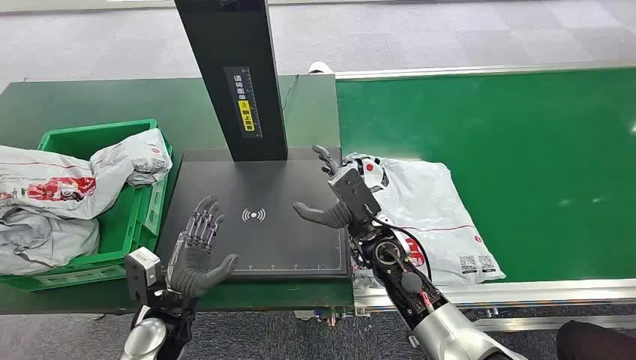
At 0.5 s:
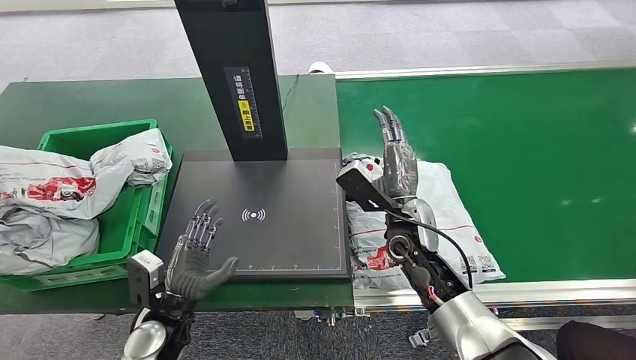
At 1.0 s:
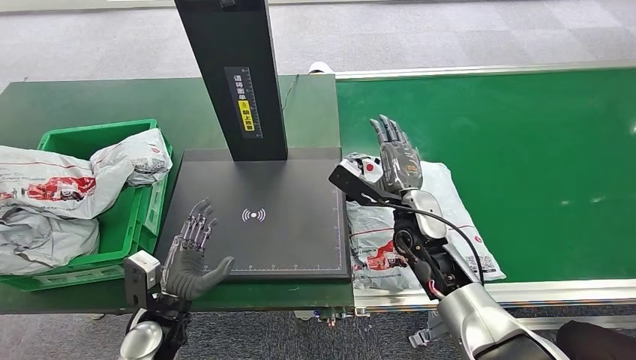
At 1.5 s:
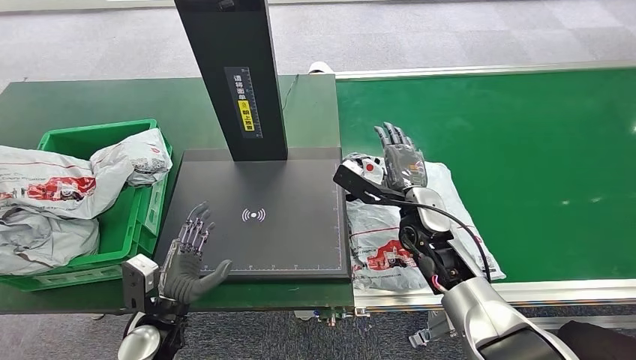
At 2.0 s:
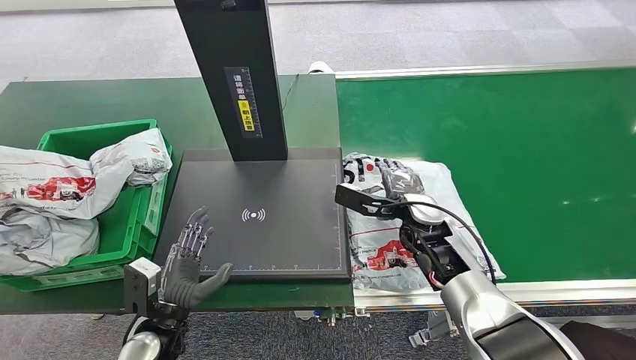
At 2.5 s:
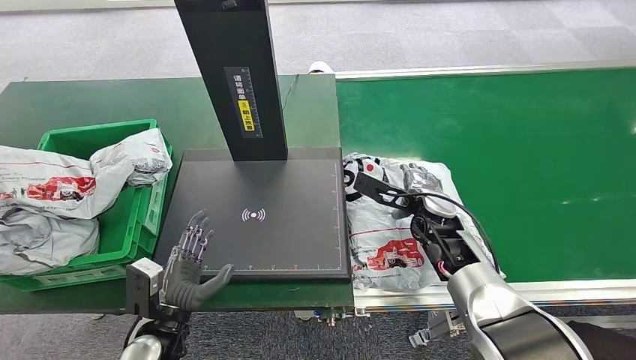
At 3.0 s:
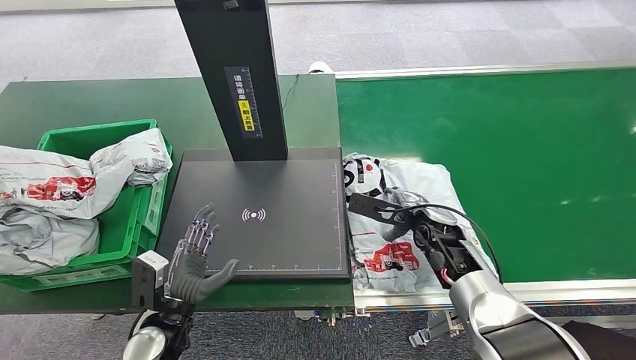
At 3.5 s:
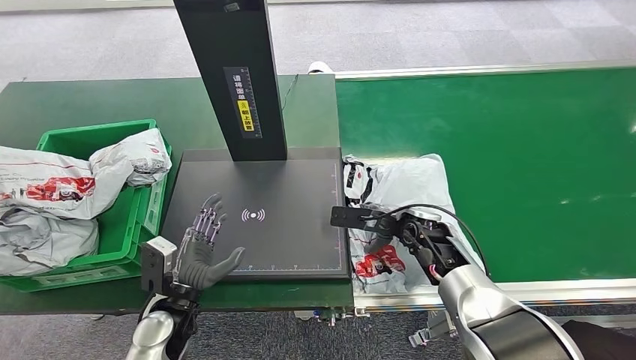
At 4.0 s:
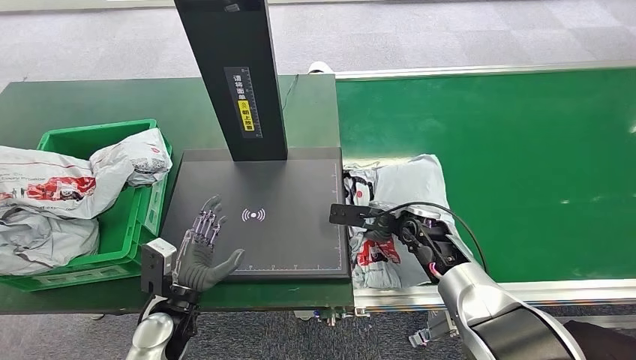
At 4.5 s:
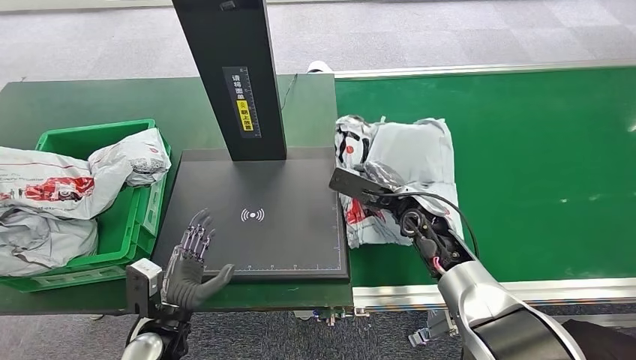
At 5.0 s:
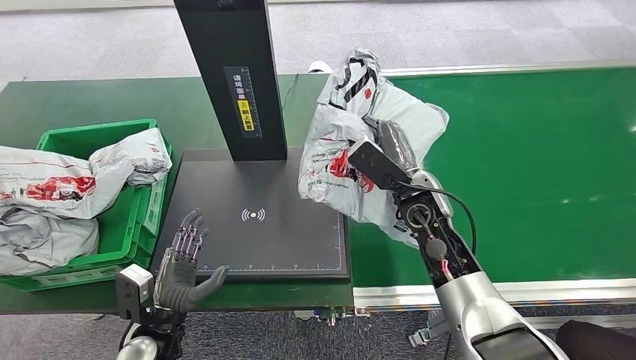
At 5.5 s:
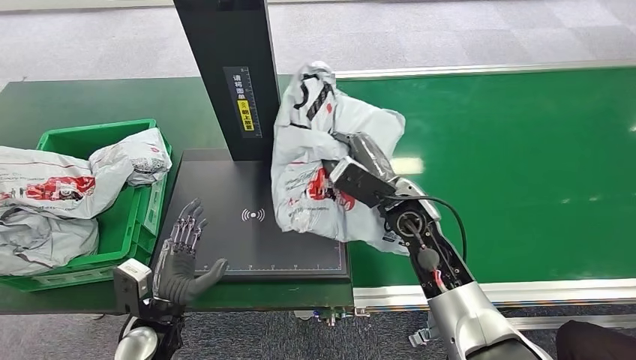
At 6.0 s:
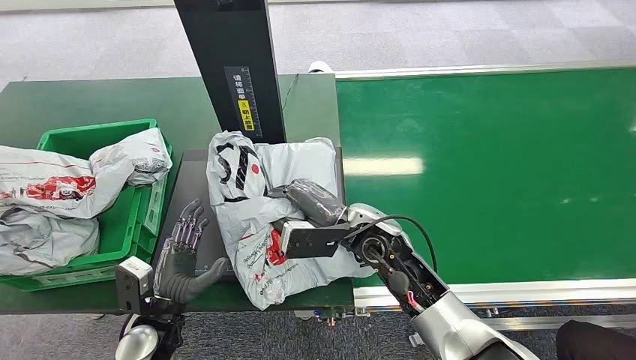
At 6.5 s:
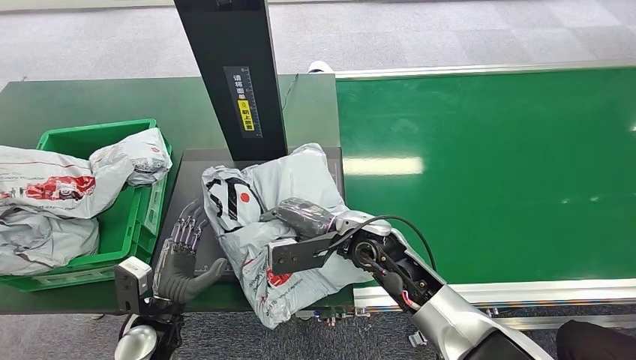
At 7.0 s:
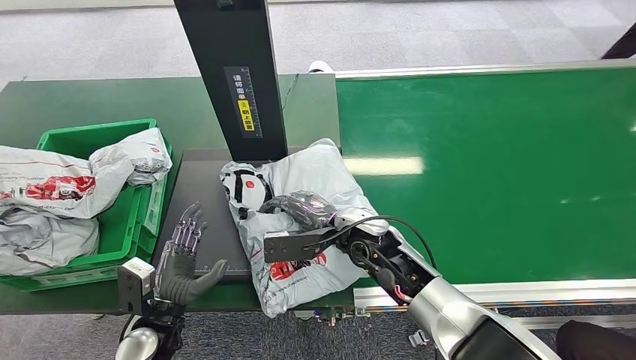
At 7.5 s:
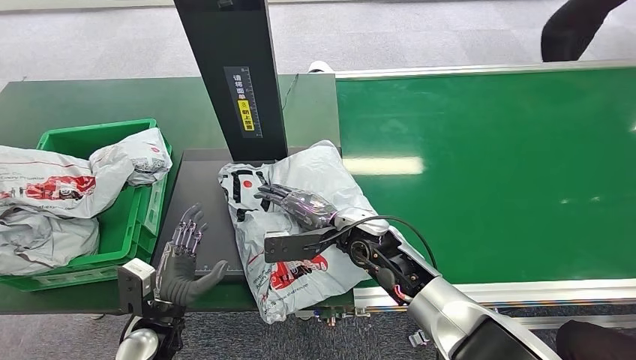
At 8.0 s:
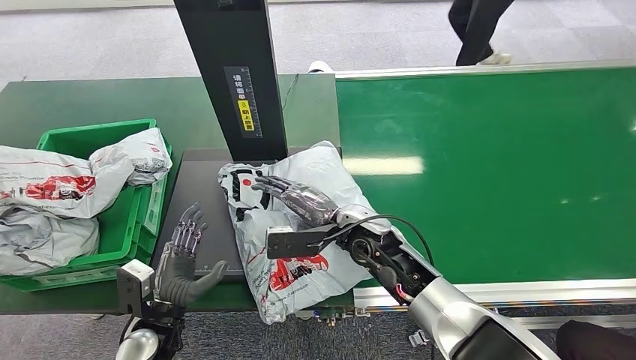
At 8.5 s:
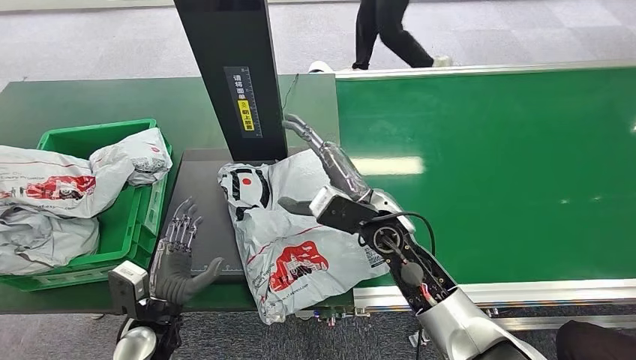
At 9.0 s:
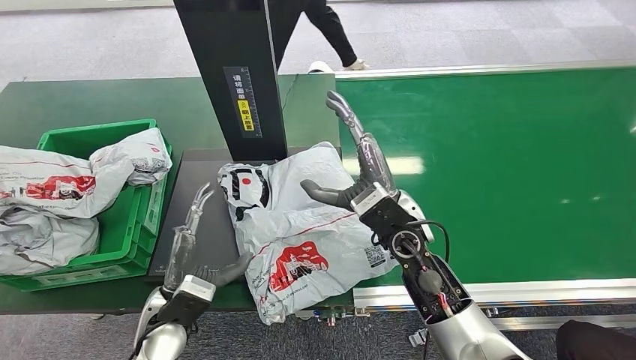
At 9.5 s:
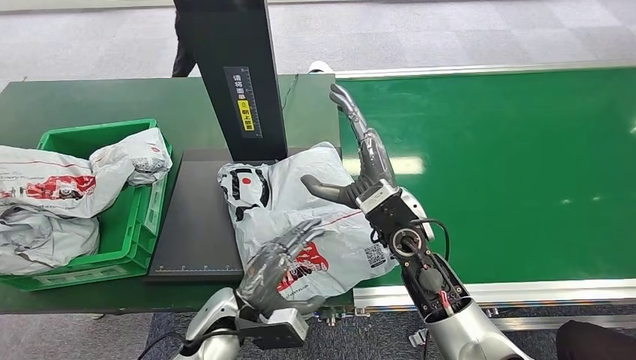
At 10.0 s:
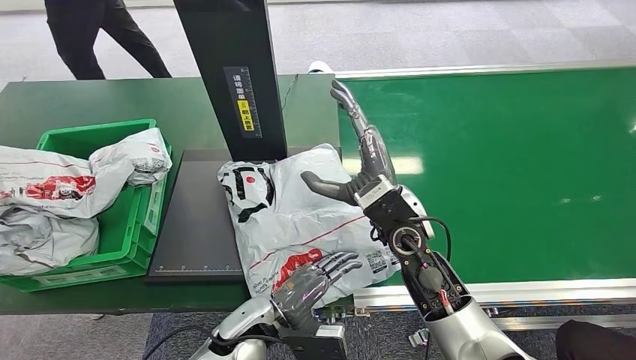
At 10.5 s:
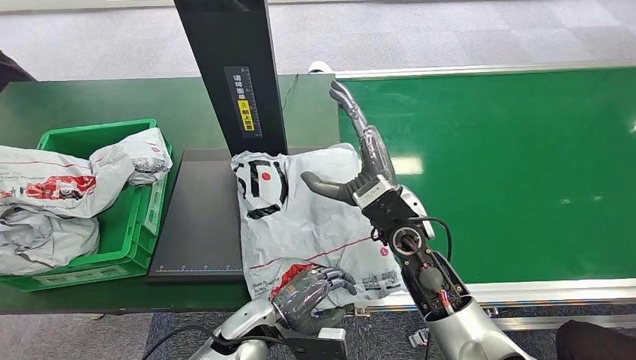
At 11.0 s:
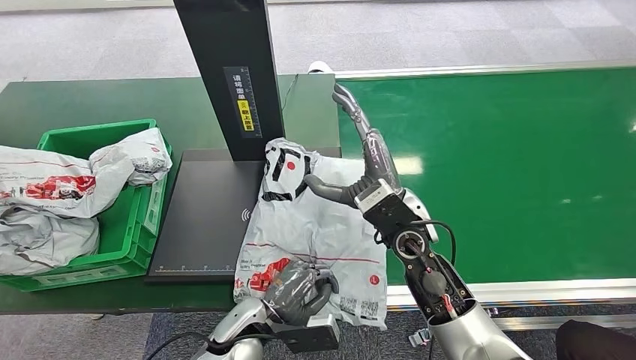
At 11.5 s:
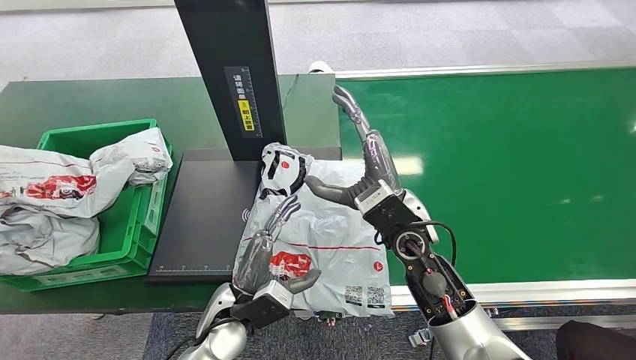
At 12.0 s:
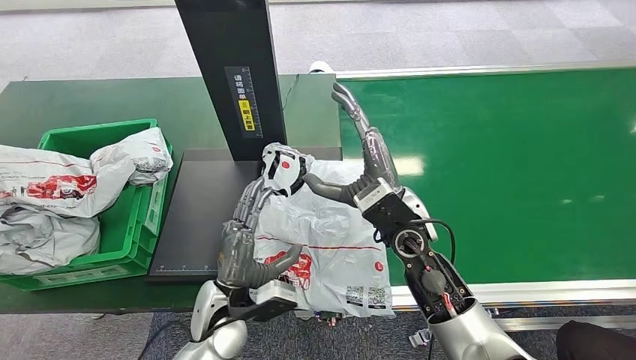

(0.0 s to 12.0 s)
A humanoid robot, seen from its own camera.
Step, 0.0 s - 4.5 s: Pick up the package from the conveyor belt.
Step, 5.0 s - 8.5 s: Place the package onto the inbound machine.

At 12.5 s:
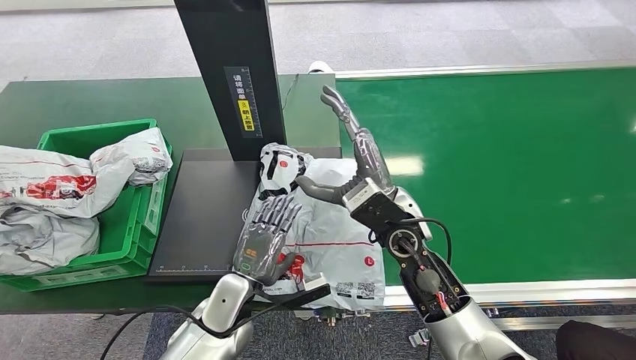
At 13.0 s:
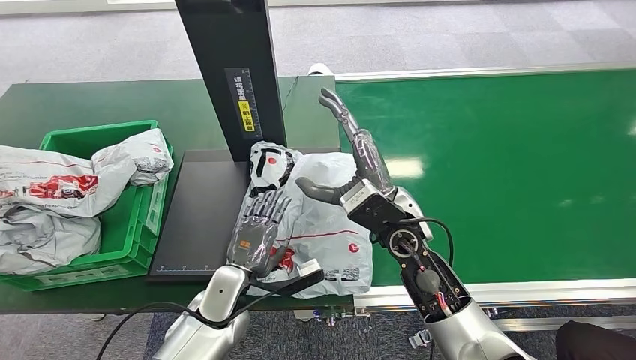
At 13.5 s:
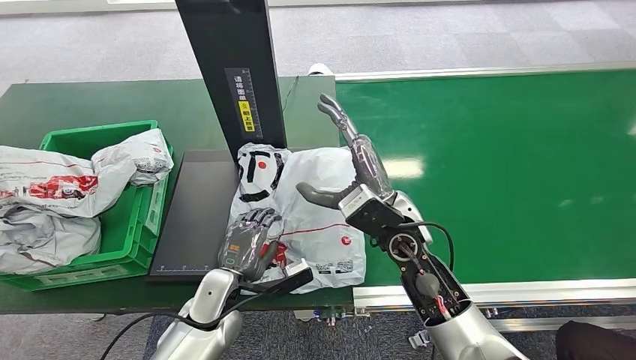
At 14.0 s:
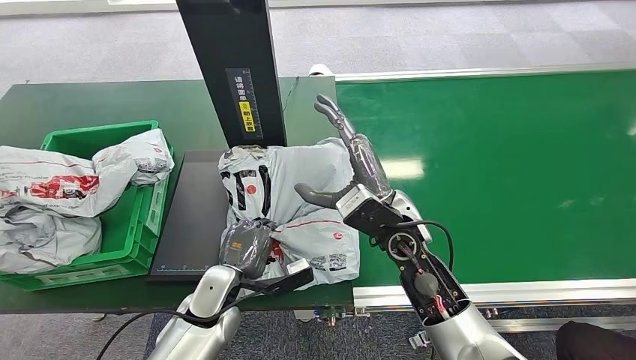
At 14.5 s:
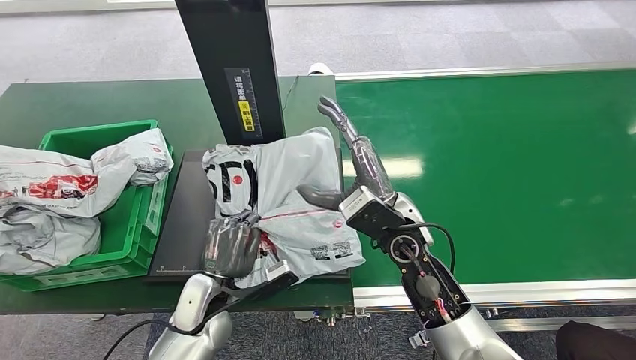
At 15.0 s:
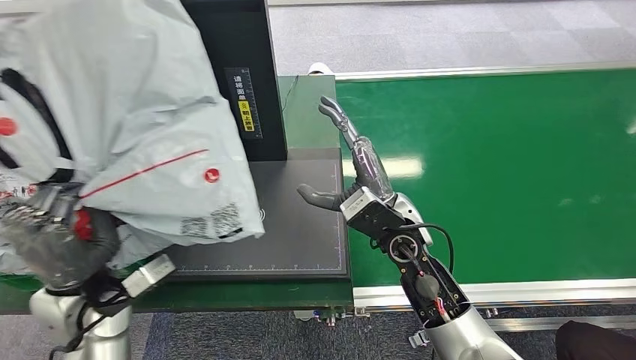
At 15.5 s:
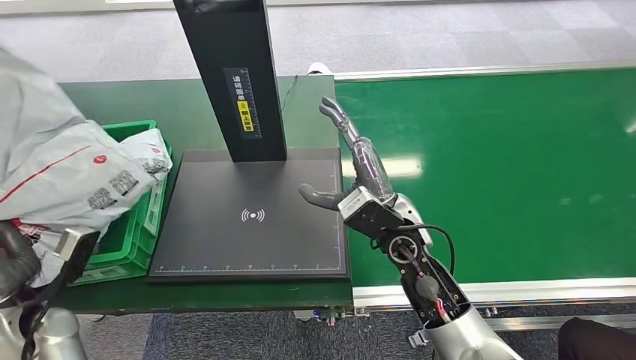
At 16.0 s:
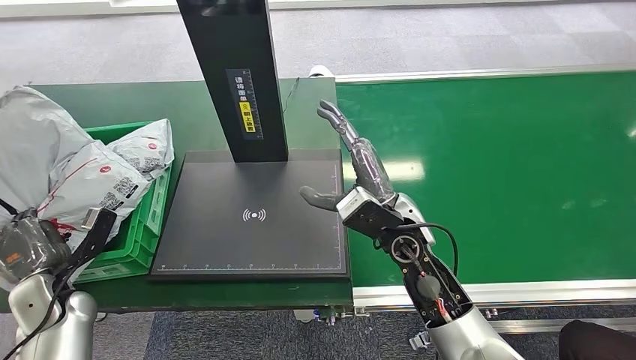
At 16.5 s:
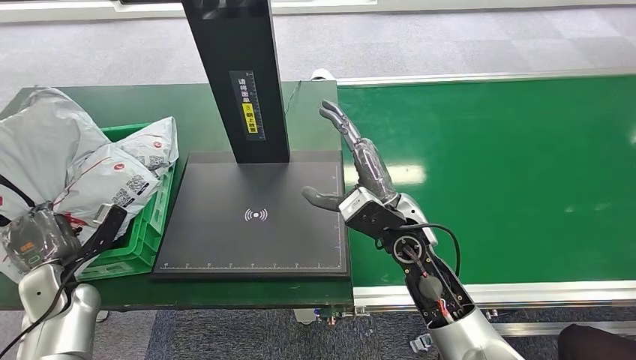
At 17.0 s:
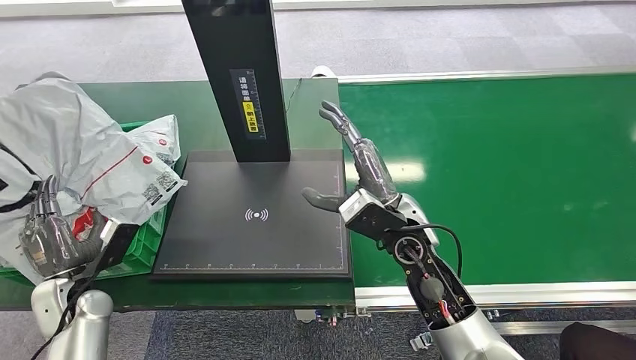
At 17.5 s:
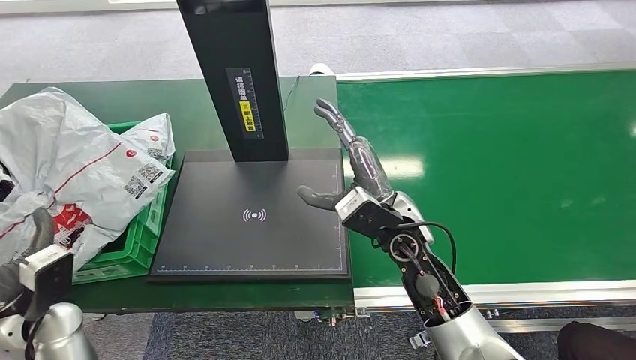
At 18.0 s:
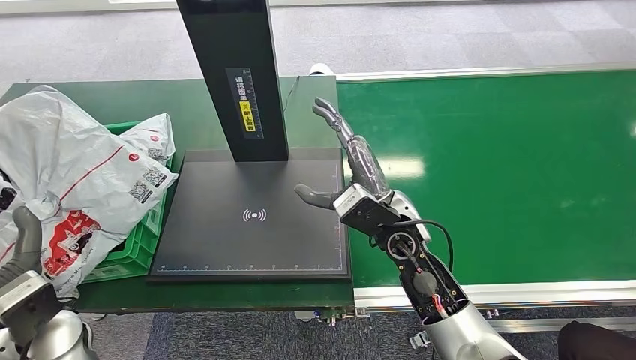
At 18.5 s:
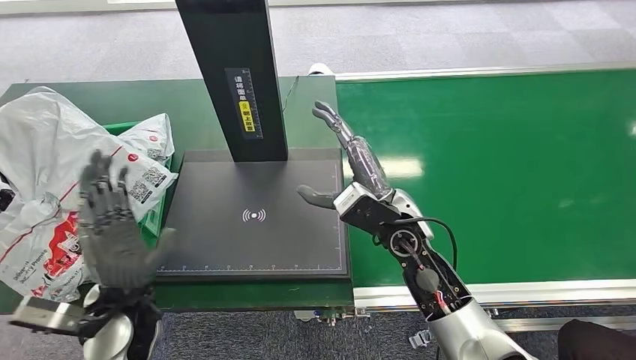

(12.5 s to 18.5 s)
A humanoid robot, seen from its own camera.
Step, 12.5 s - 15.0 s: Pick up the package from the inbound machine.
Step, 15.5 s - 18.5 s: Place the package into the parcel locker.
12.5 s - 14.5 s: There are only small adjustments of the hands.

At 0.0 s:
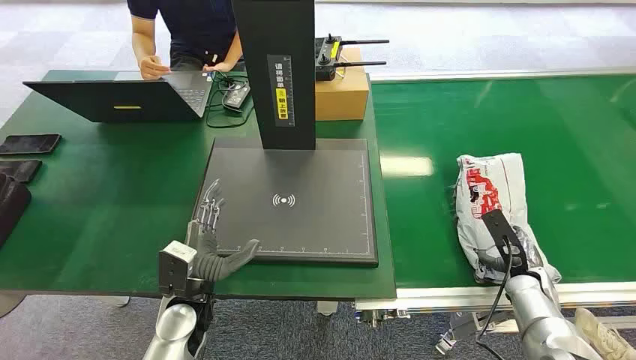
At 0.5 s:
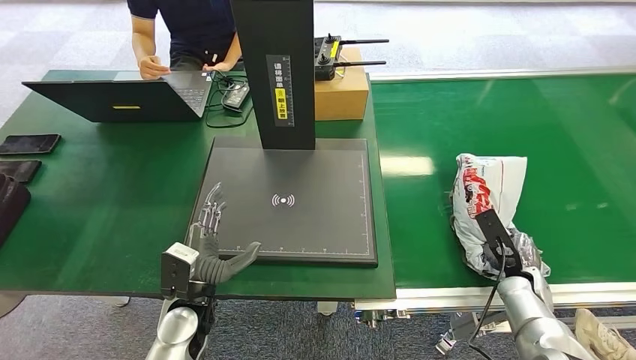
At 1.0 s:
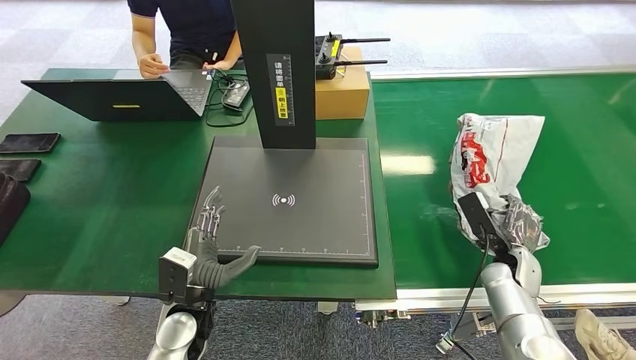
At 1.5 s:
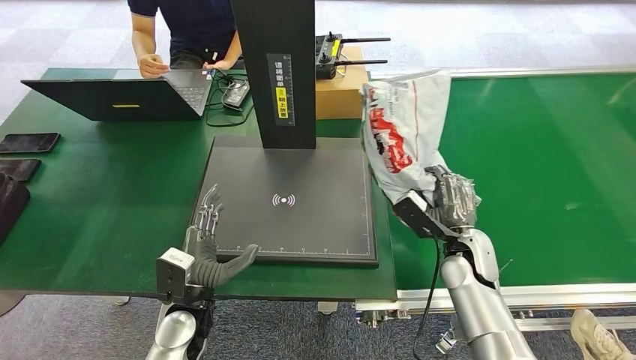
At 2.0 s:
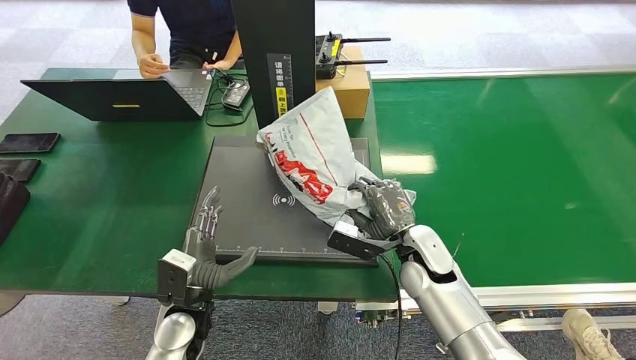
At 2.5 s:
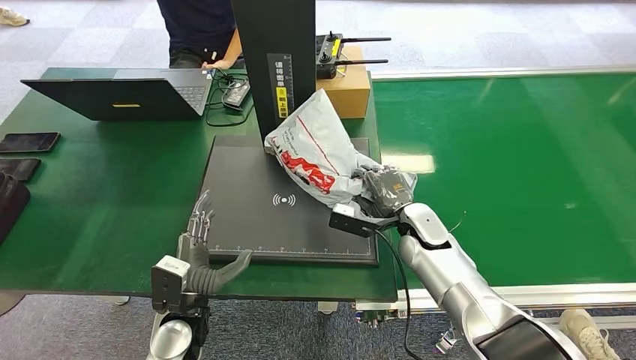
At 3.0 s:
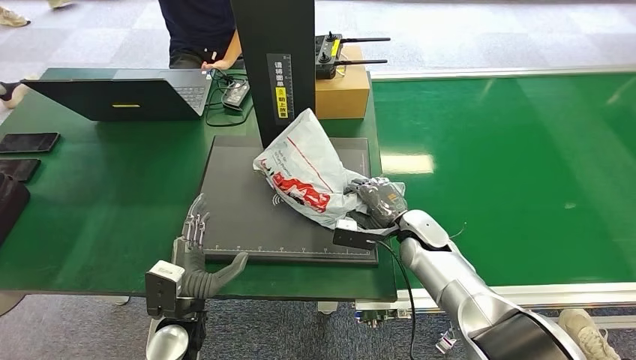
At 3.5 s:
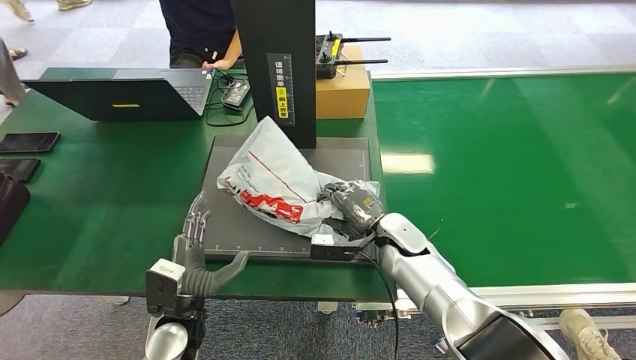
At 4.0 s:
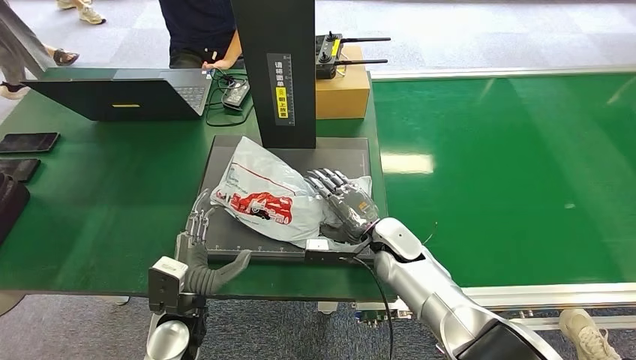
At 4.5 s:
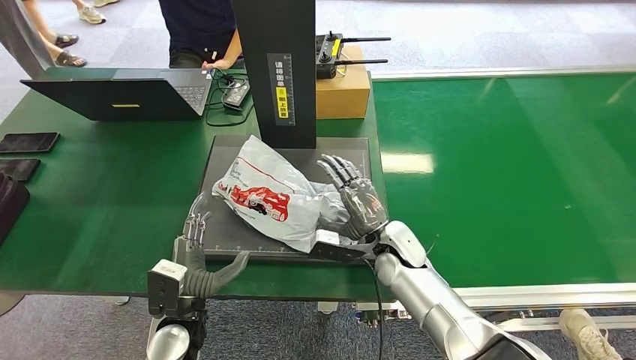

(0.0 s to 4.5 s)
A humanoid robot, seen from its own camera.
Step, 0.0 s - 1.0 s: Pick up the package from the conveyor belt.
2.0 s - 4.5 s: The right hand moves roughly 5 cm.
